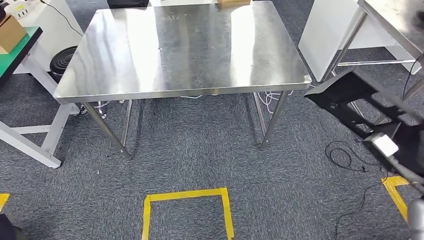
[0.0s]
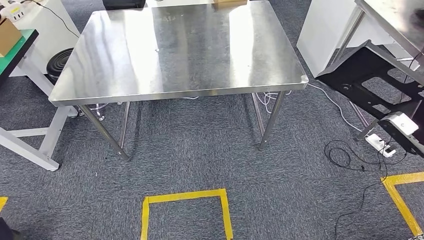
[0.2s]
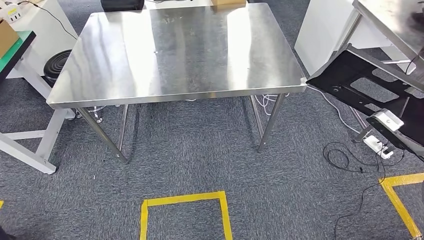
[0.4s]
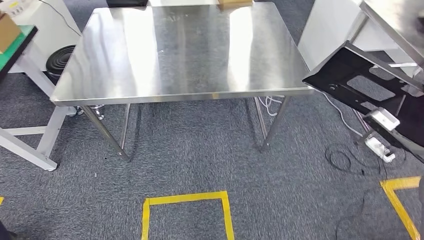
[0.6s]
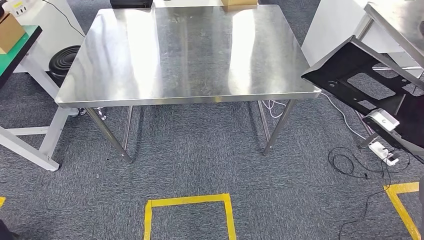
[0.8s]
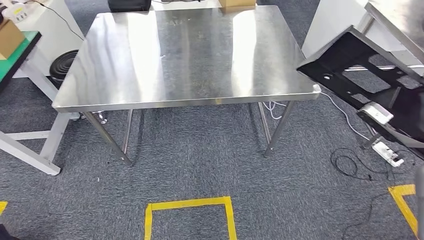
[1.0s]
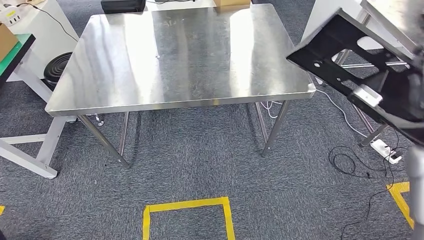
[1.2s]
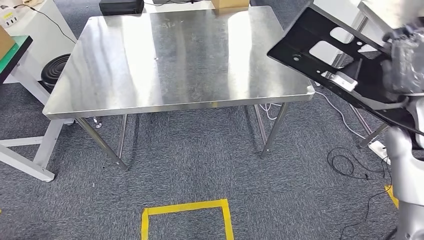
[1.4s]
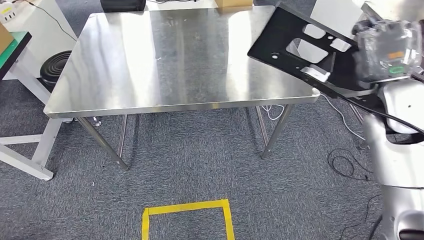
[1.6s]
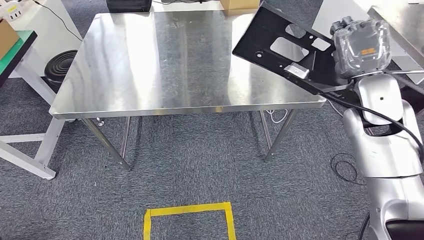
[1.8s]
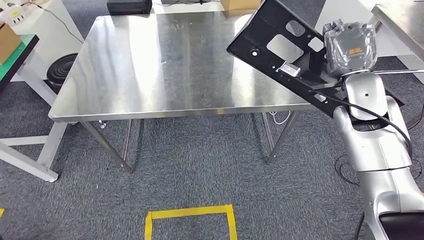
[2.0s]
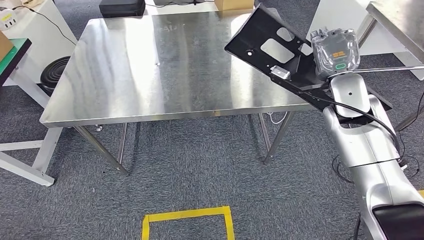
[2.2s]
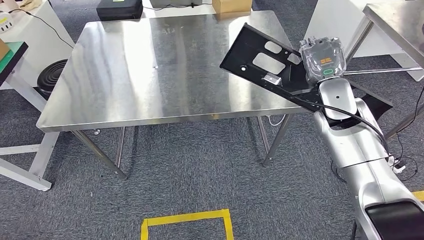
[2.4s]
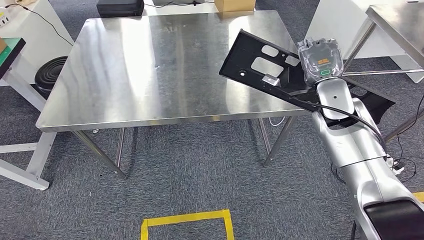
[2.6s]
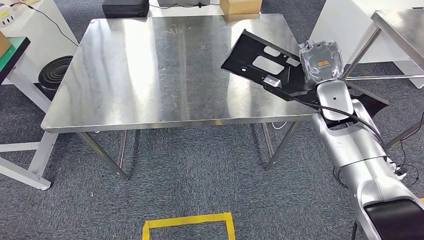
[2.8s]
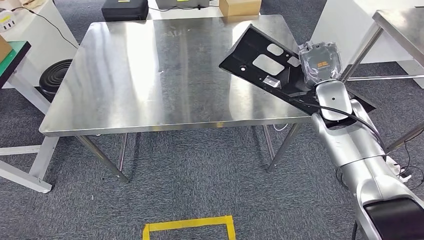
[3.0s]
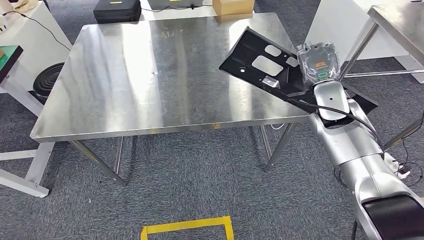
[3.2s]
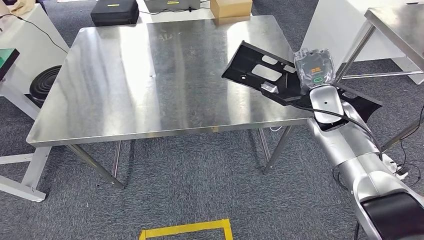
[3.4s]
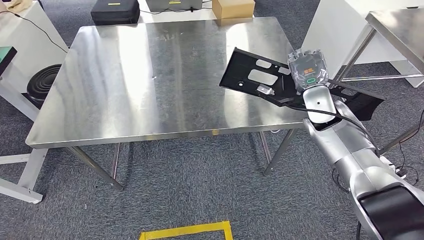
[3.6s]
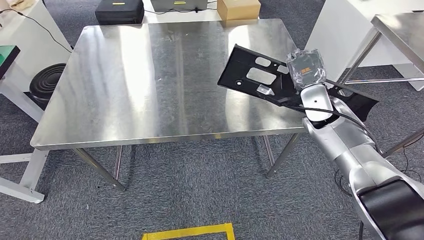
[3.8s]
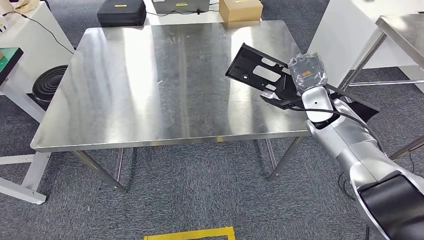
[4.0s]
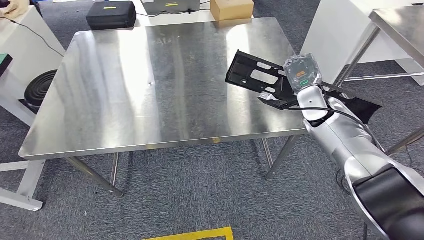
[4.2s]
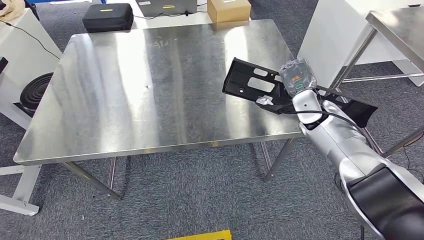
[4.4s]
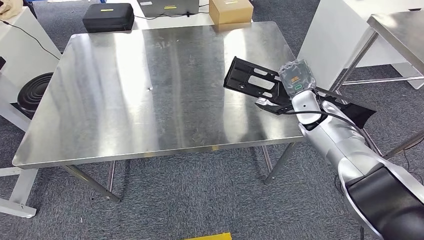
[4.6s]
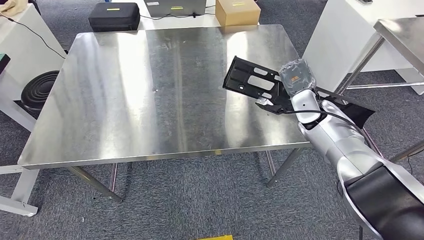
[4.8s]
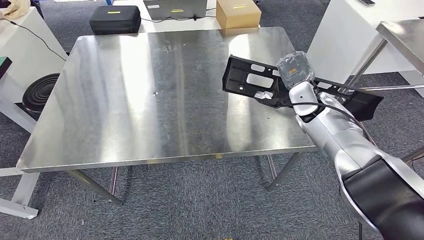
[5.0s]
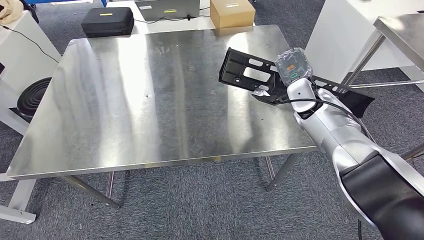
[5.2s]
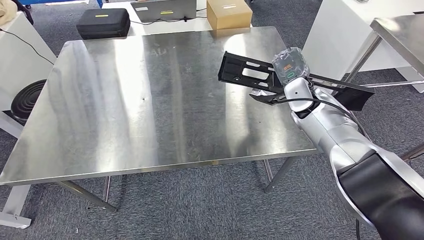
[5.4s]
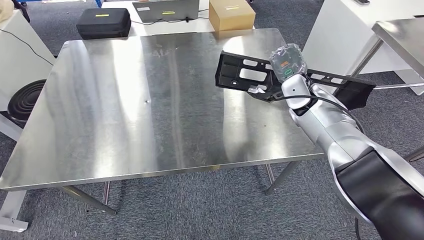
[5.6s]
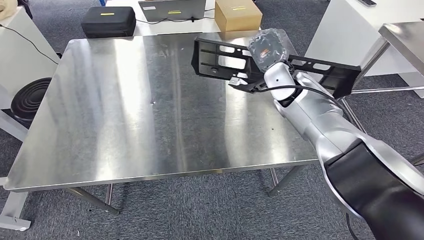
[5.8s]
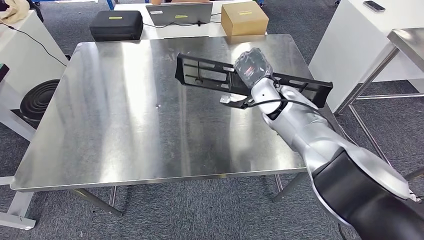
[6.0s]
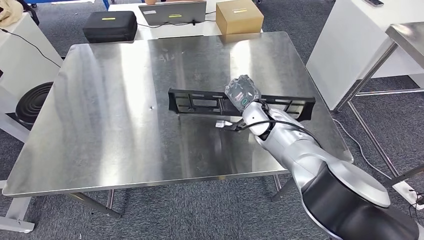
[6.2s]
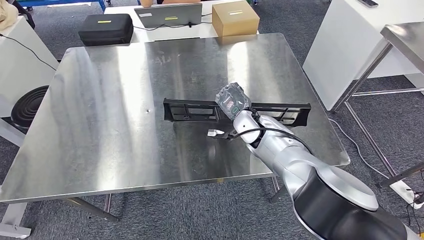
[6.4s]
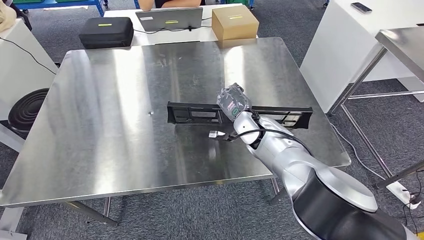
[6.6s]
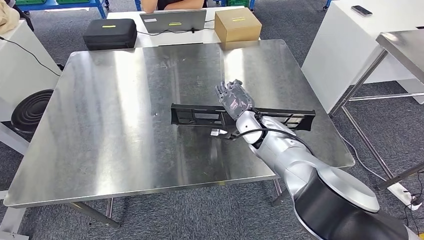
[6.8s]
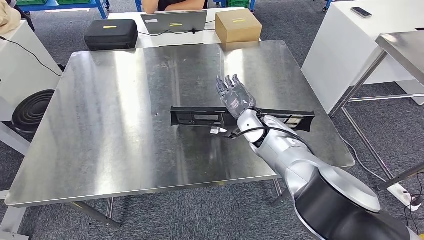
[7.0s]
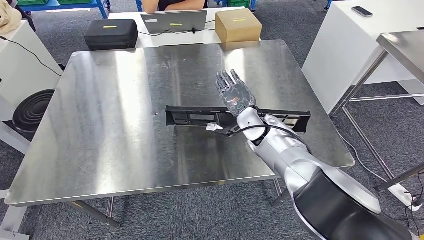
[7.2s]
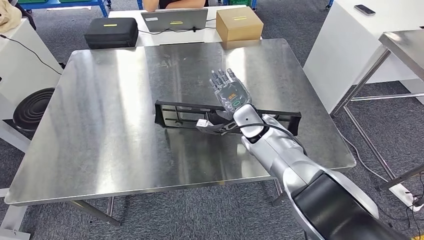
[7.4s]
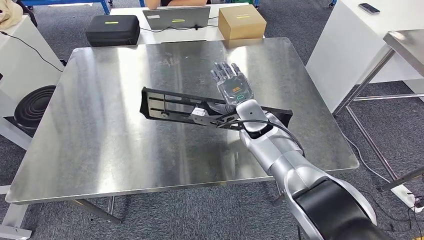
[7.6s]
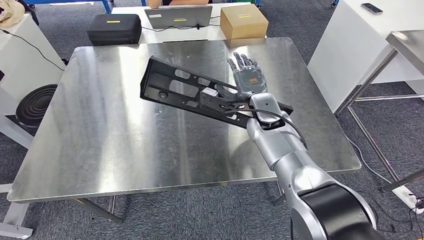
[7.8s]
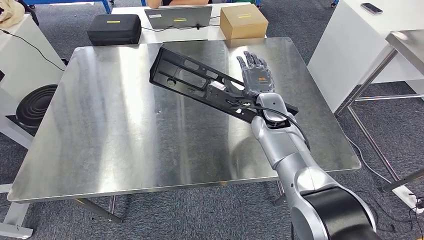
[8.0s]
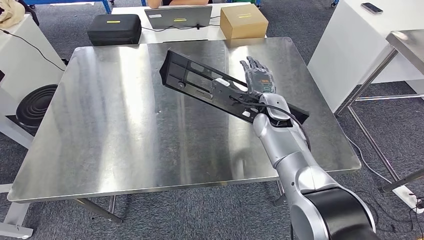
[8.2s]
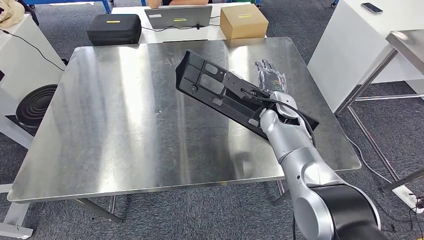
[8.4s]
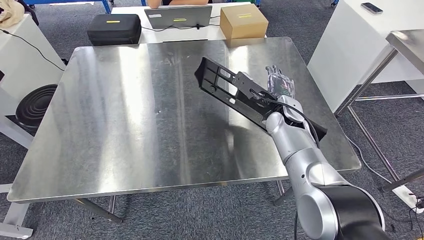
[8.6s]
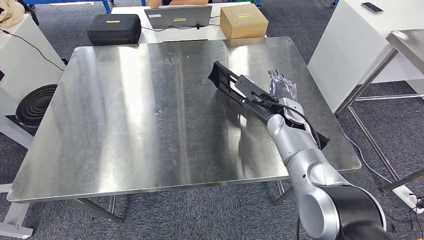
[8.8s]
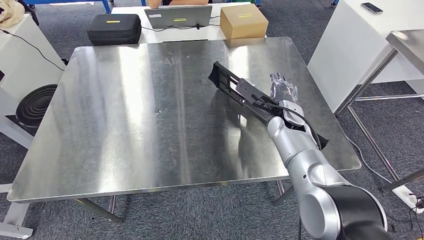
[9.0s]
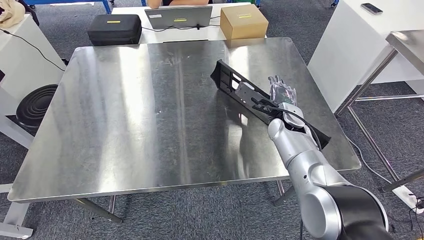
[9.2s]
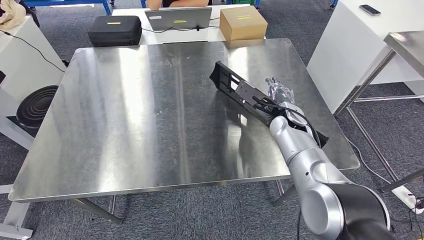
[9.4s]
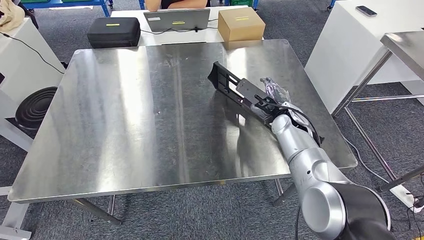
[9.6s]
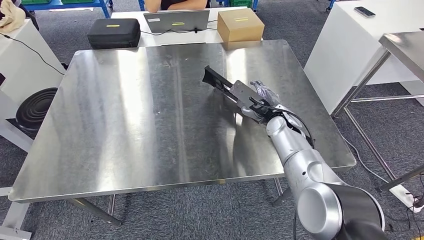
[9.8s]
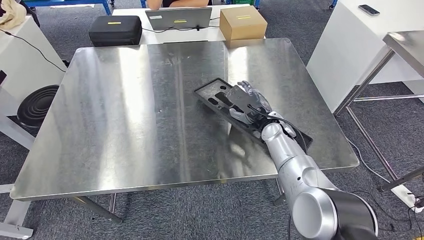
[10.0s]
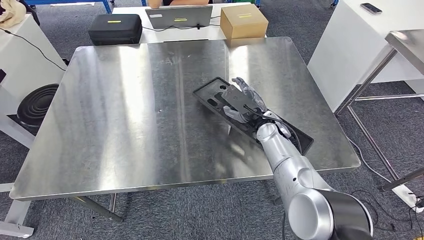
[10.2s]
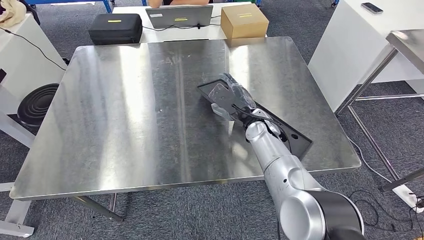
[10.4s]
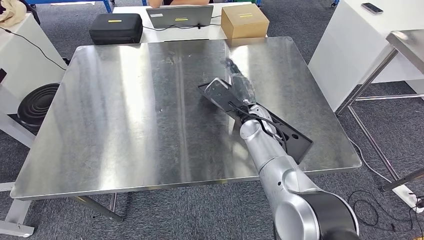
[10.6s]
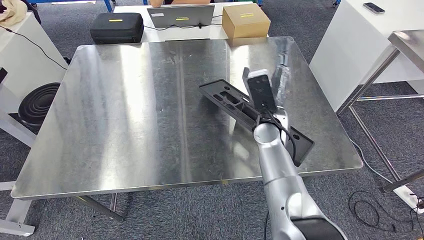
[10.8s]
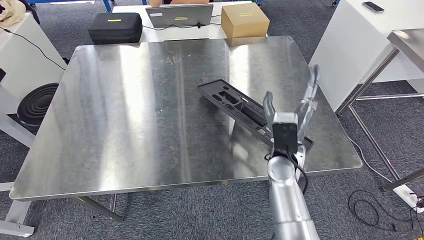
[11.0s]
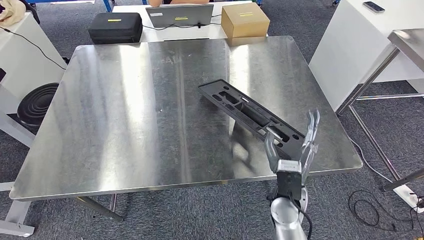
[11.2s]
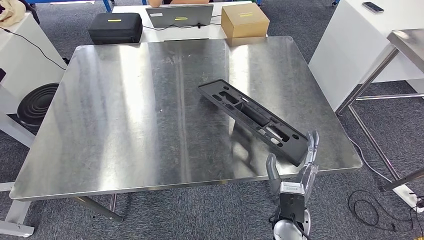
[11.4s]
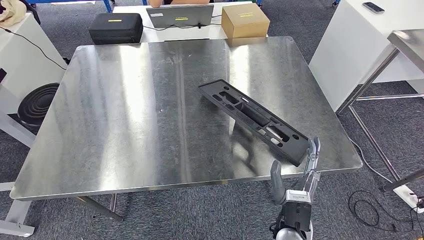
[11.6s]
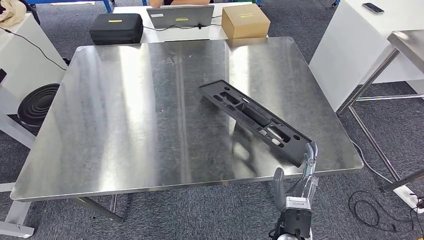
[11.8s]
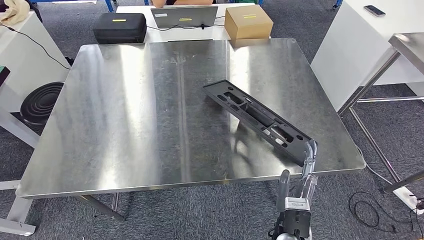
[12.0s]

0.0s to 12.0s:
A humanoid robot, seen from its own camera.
Step, 0.0s to 11.4s: Insert the large material into the corresponding slot on the workbench.
7.6s to 9.0s: The right hand goes some 10 cm to the right.
9.0s to 10.4s: The right hand shifts some 5 cm to the left. The left hand goes approximately 10 cm to the right.
10.4s to 12.0s: The right hand shifts approximately 25 cm backward.

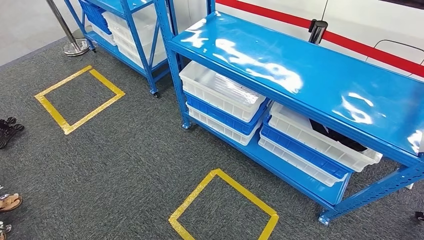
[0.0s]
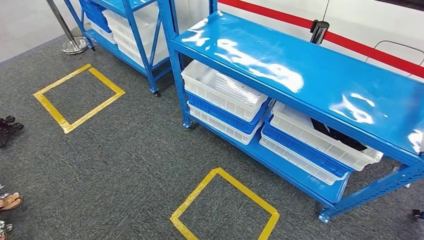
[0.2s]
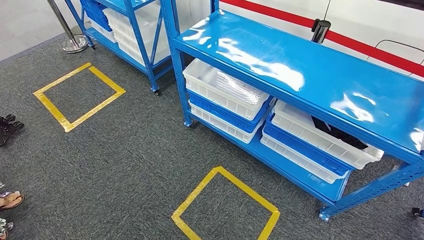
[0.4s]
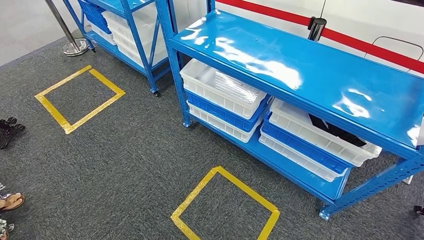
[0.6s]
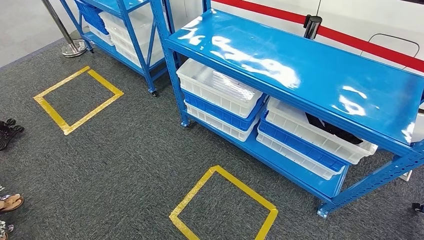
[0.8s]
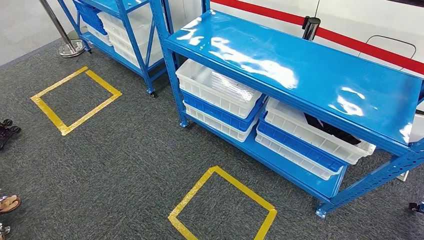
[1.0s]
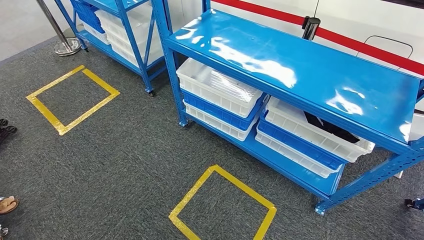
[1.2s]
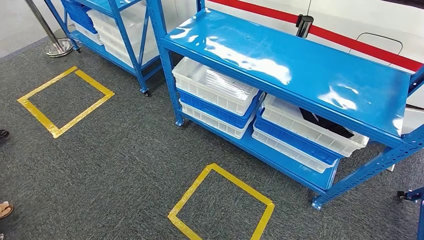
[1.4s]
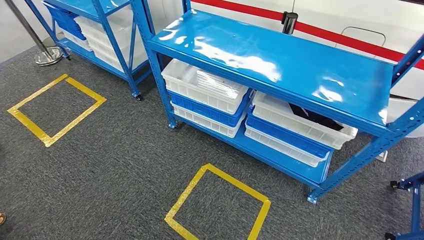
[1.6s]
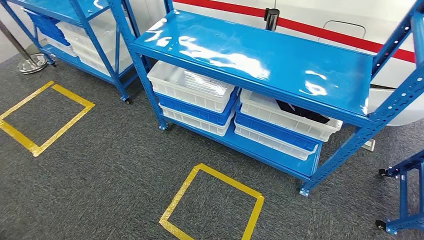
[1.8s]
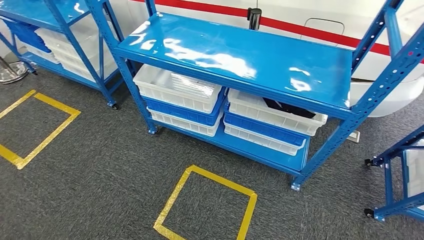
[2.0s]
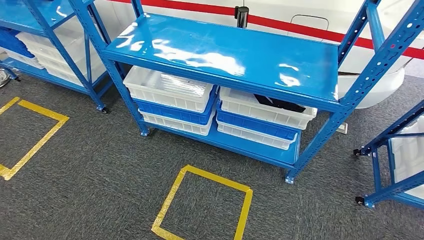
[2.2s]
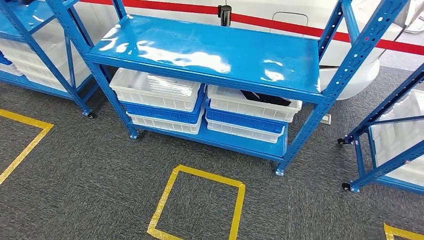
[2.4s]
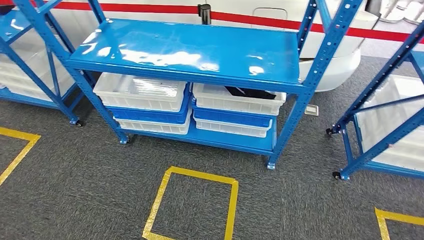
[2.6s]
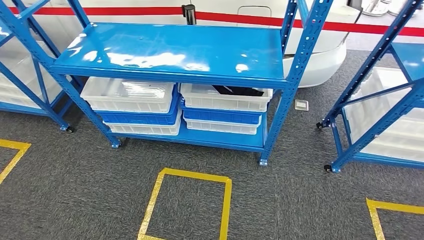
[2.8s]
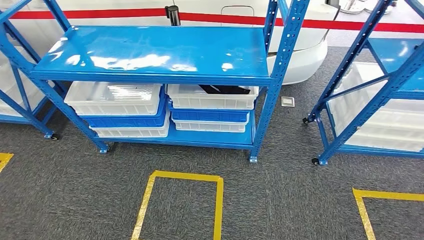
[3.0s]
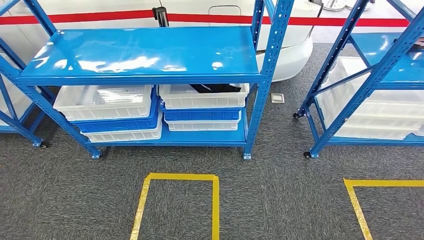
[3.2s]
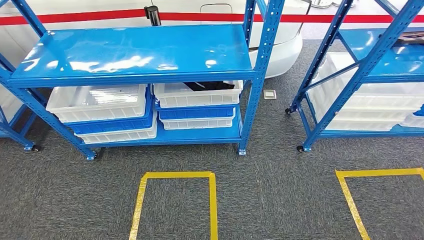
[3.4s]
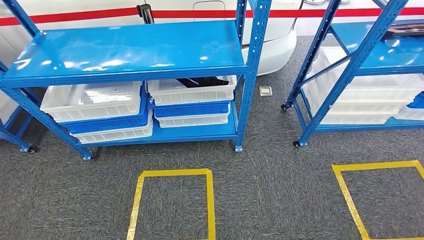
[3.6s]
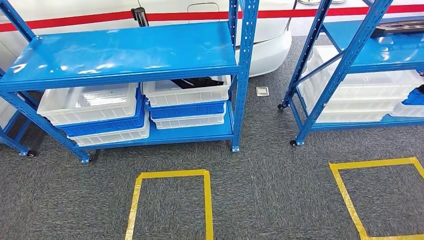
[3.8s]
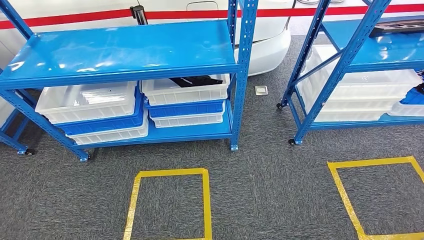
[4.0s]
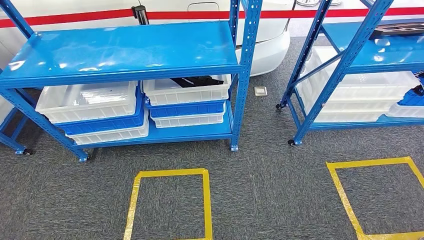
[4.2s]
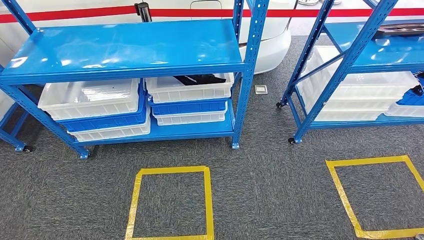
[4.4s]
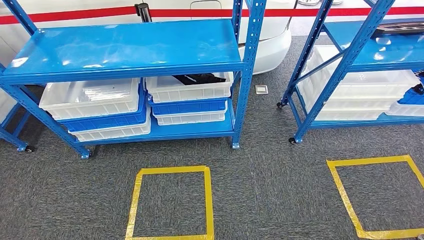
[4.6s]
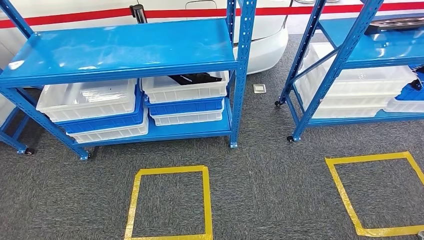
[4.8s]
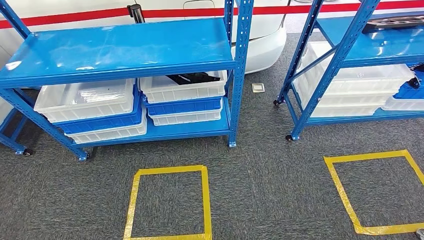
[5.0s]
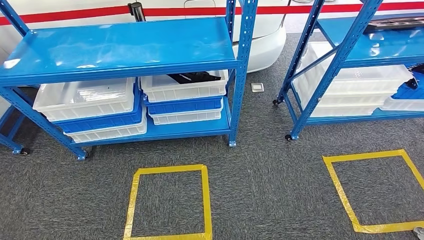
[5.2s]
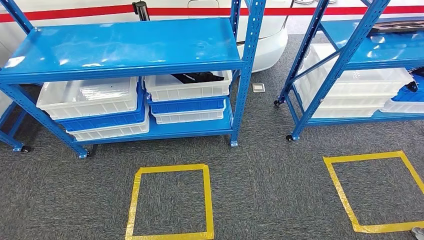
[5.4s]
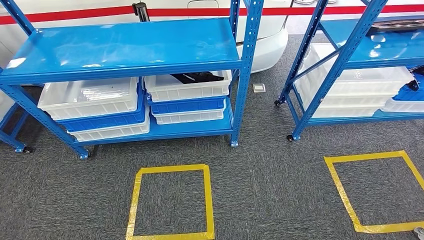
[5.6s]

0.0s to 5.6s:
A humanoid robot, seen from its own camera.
Step, 0.0s to 5.6s: Move to the initial position of the shelf.
